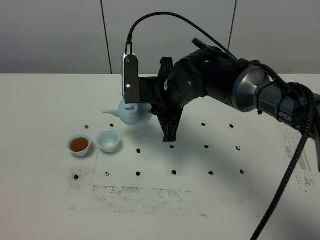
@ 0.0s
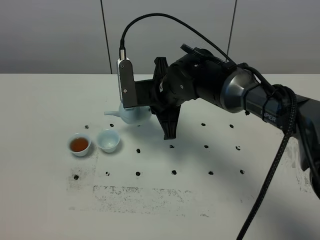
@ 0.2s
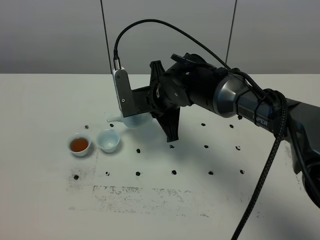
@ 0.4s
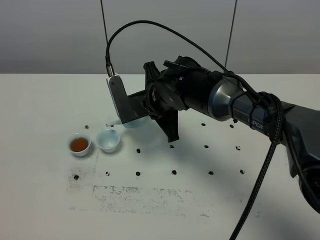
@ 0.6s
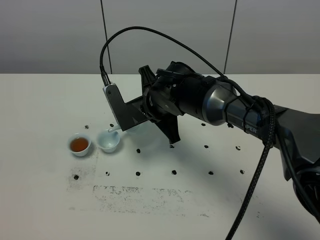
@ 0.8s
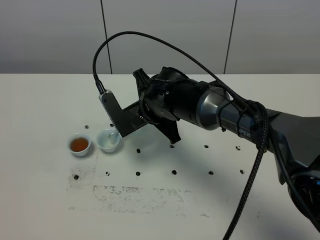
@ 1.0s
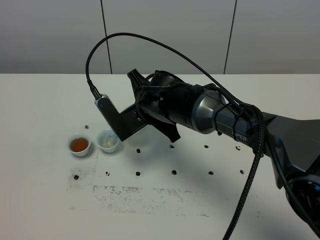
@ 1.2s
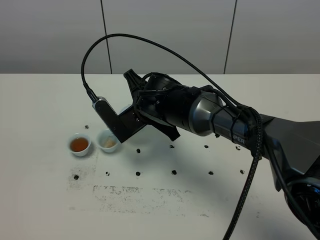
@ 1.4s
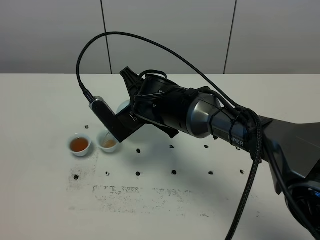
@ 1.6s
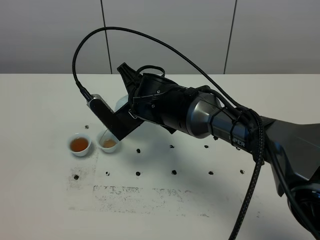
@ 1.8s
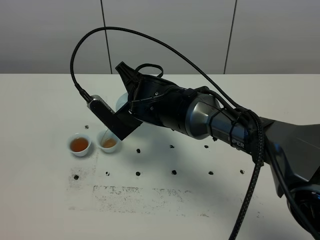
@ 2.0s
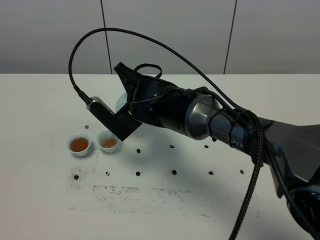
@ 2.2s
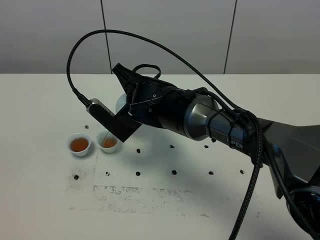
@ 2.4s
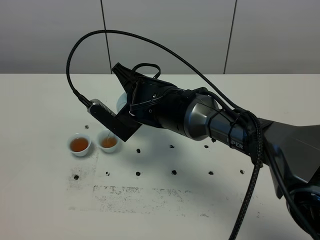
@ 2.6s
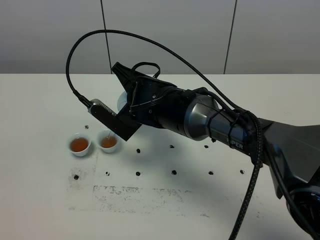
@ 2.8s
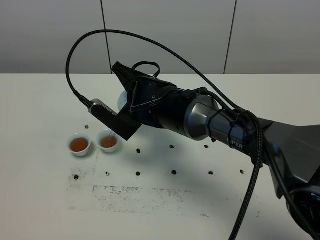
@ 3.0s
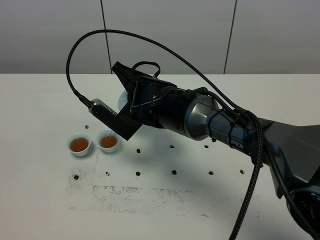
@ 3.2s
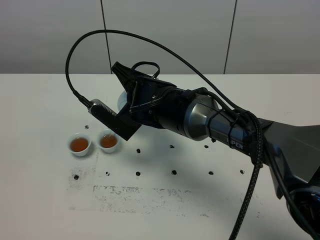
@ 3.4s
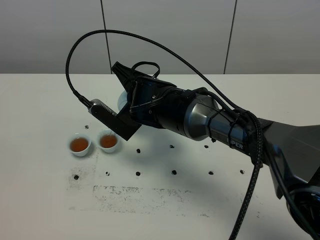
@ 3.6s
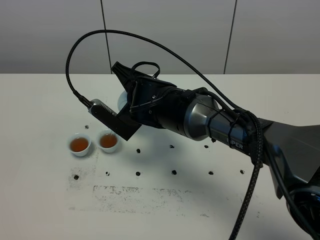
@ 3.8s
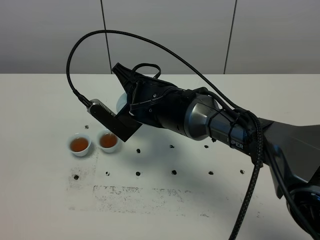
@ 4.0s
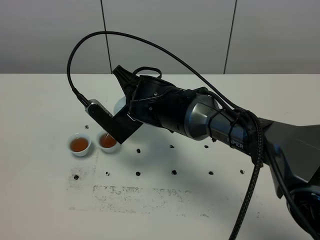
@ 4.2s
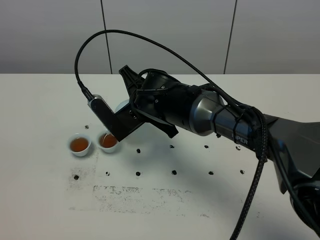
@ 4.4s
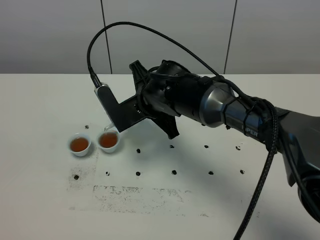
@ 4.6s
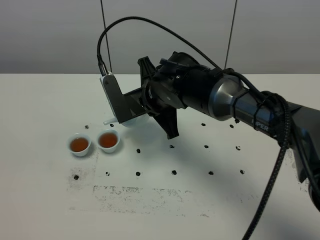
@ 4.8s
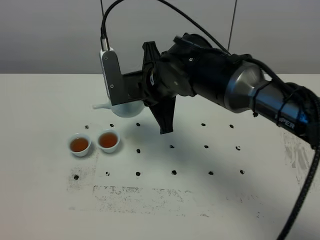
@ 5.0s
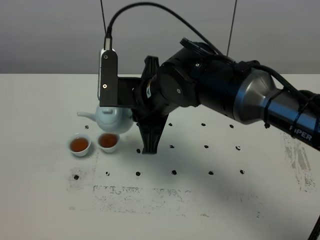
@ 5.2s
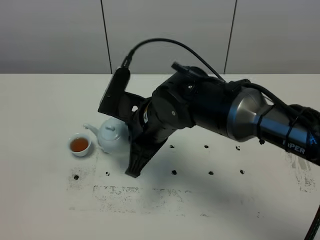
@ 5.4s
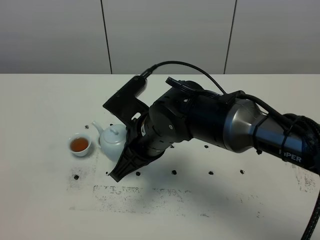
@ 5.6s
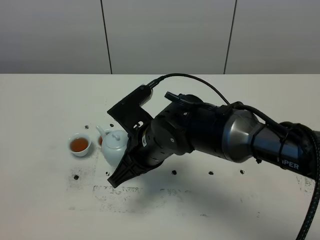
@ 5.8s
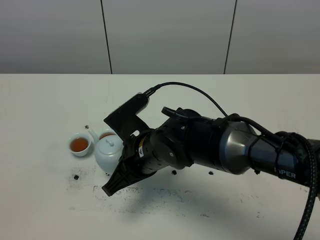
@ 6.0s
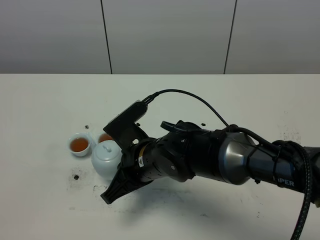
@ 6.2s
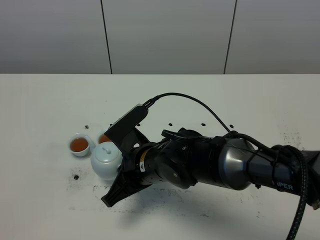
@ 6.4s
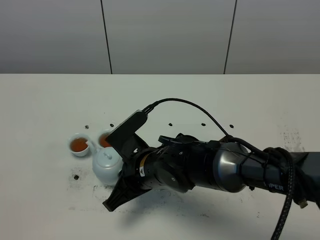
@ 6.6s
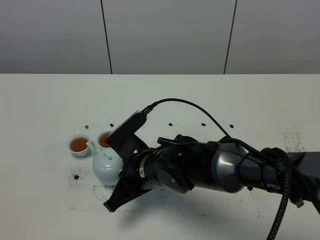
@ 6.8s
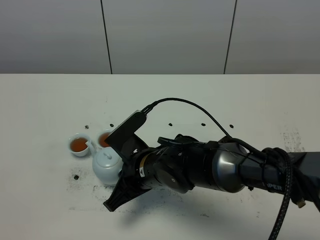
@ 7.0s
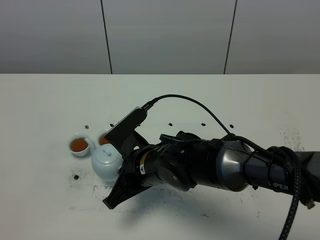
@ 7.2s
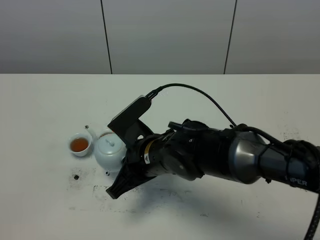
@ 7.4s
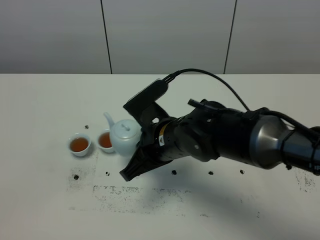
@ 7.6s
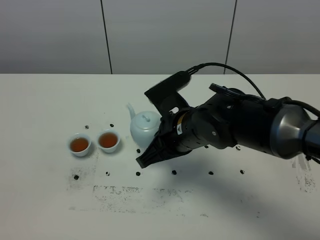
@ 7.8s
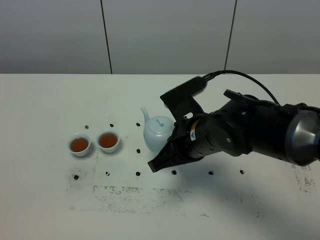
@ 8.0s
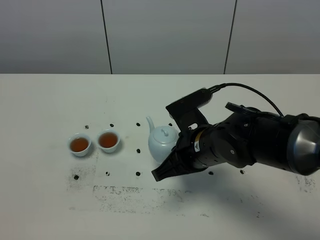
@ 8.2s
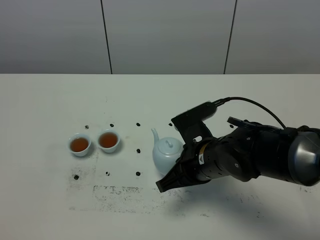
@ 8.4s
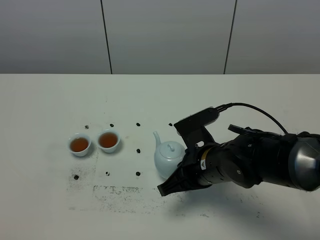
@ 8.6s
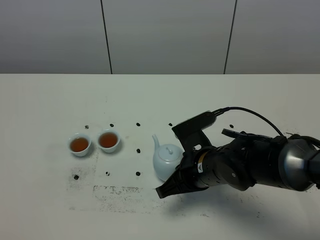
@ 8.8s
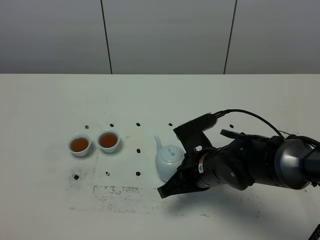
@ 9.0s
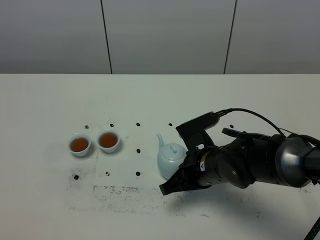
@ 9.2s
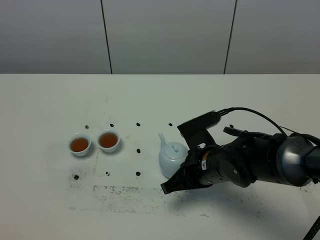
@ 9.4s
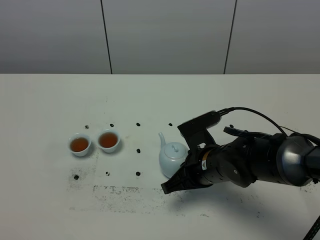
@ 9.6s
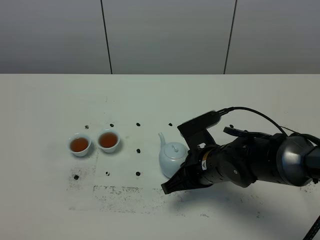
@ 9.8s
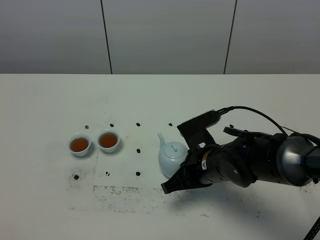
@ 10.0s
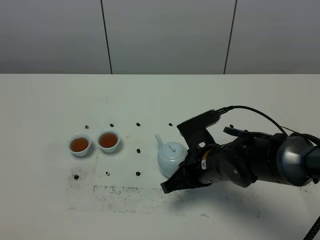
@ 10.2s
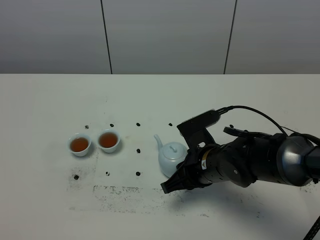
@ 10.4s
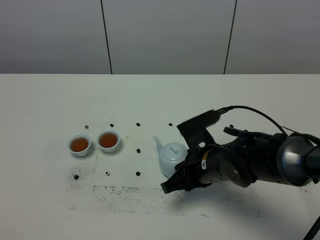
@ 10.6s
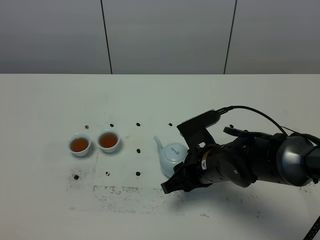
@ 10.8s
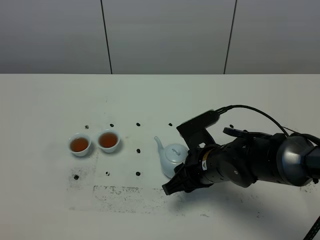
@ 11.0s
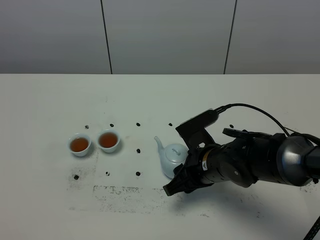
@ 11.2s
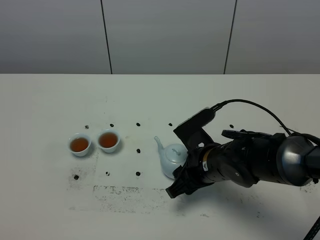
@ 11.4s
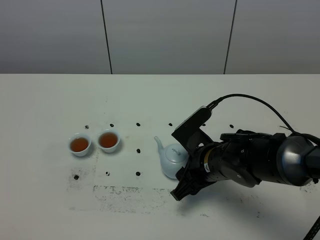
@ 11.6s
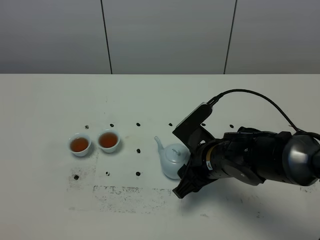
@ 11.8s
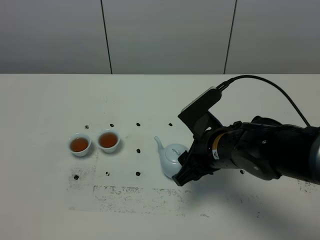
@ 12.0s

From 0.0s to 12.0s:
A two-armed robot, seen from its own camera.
Task of the whole recording: grasp the blue porcelain teapot and pour the tea into the two blue porcelain teacups one by one, put the blue porcelain teapot back in its original place.
Step, from 0.0s to 4.8s: Pour tea into the teacup with the right gripper.
From 1.6s to 4.4s: The grippers move only a little.
From 4.4s to 6.0s: The right gripper travels backward by about 10 cm.
From 6.0s to 7.6s: There are only small adjustments of the grippers.
From 7.6s to 9.0s: The right gripper shifts about 10 cm downward and to the right.
From 9.0s to 10.4s: The right gripper opens its fingers.
From 10.4s to 12.0s: The right gripper goes about 5 cm upward, and opens up.

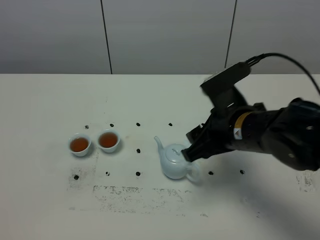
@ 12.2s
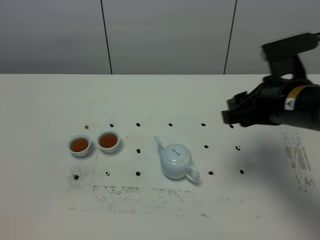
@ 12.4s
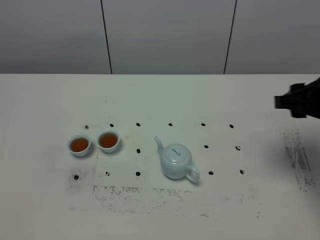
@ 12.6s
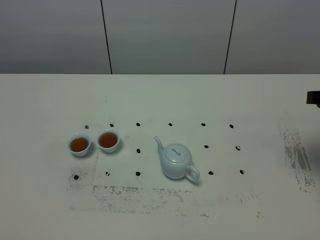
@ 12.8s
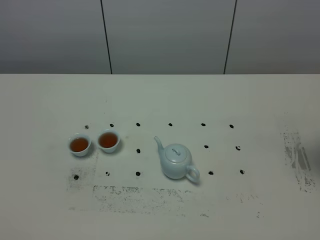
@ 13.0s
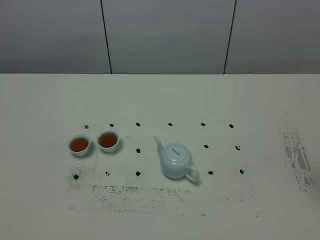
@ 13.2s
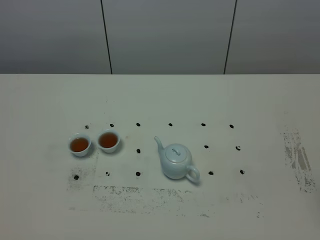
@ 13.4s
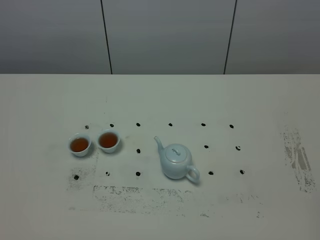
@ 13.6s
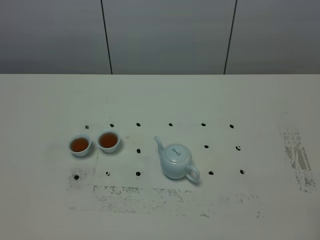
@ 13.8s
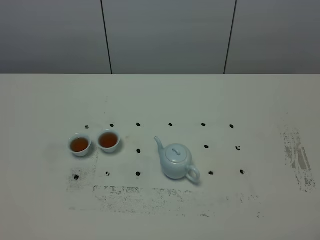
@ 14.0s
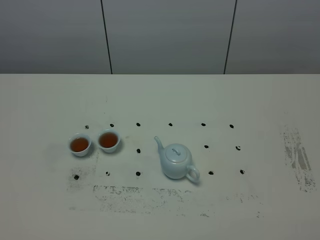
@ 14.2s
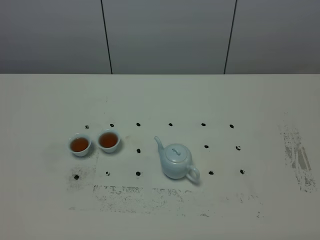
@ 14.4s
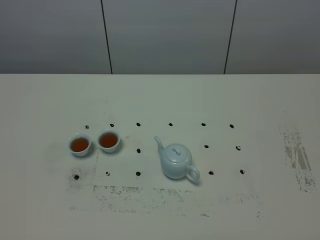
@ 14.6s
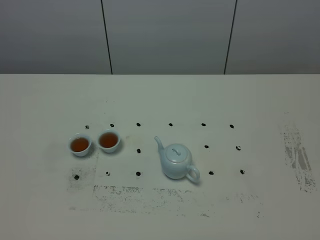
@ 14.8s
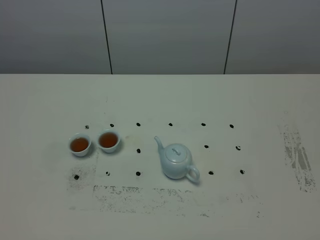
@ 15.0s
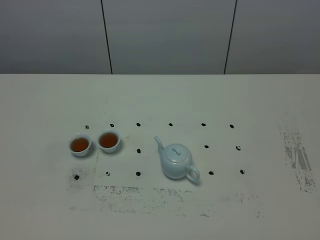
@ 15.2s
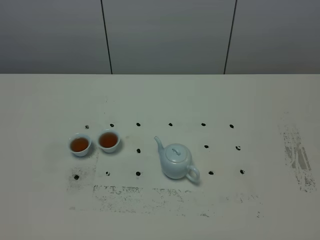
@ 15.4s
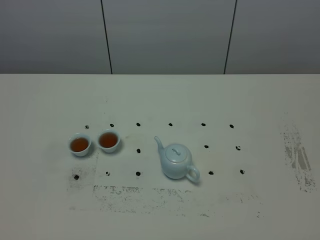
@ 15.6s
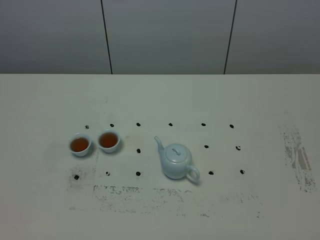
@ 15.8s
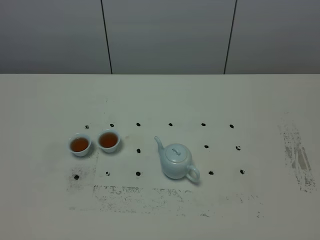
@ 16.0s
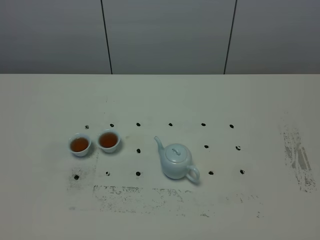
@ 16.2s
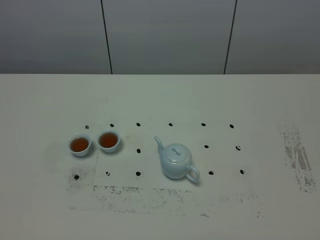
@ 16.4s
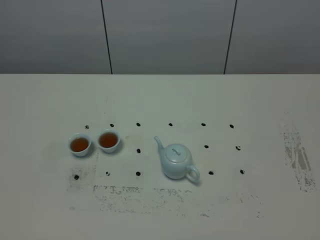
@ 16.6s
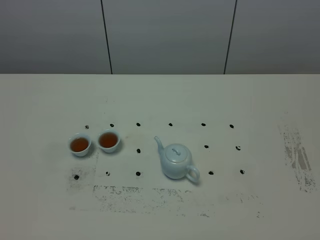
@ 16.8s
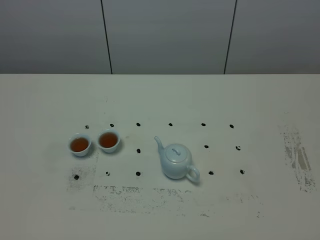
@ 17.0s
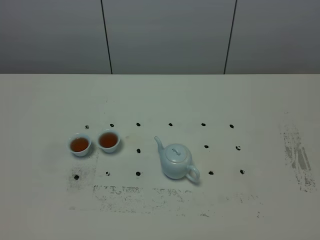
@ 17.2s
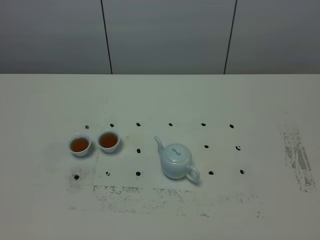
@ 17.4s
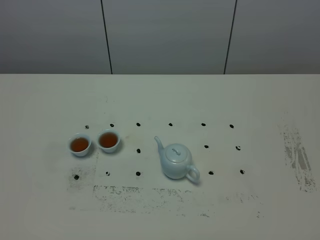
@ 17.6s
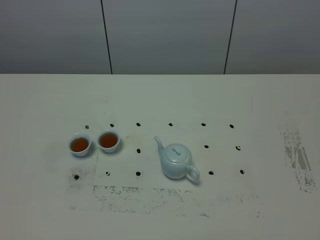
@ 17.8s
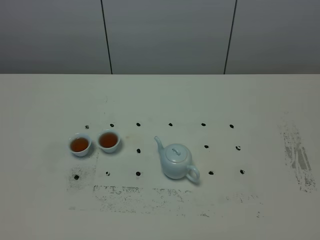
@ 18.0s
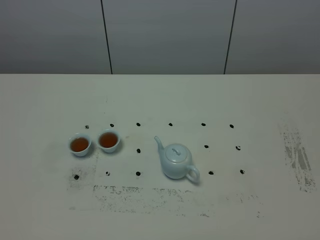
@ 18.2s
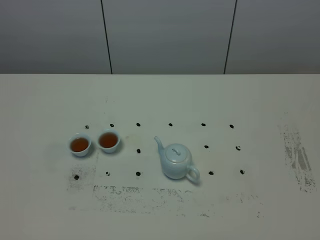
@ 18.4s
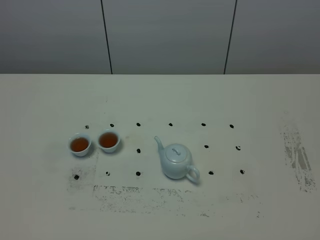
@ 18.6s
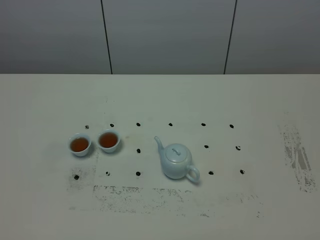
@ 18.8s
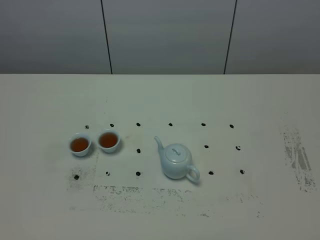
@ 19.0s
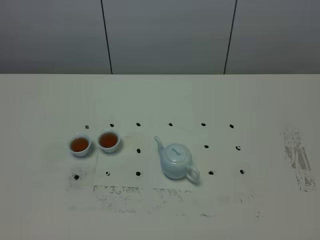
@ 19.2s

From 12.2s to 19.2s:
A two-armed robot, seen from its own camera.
Task of the whole recording: grasp the blue porcelain teapot and pour the tea into the two blue porcelain teacups one by one, put the blue porcelain teapot back in its original place.
From 12.2s to 13.6s: The right gripper moves to the right, upward and backward, about 25 cm.
From 15.0s to 19.2s: Both grippers stay about where they are.
